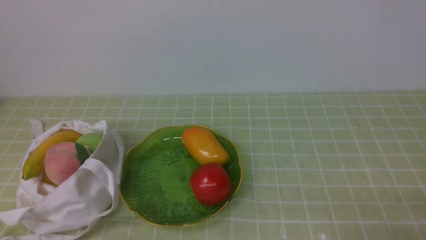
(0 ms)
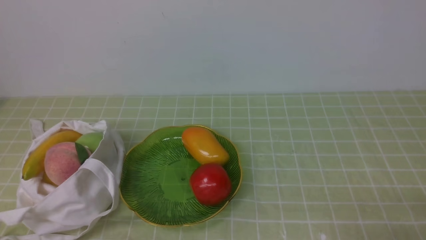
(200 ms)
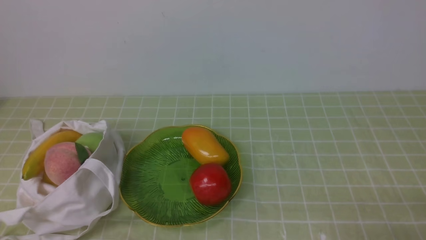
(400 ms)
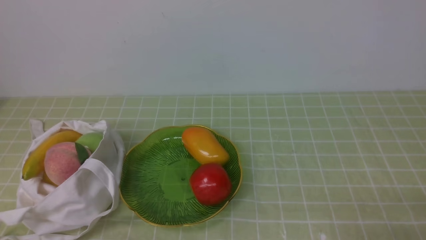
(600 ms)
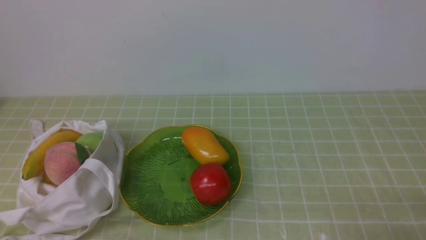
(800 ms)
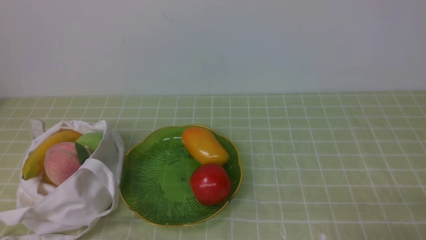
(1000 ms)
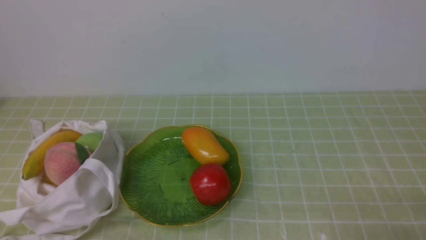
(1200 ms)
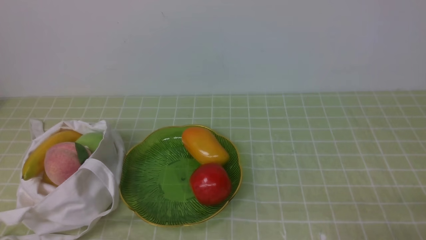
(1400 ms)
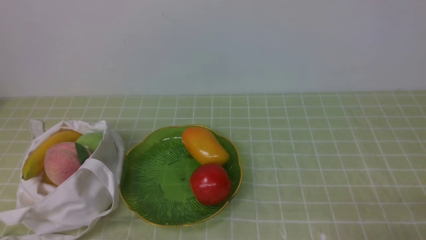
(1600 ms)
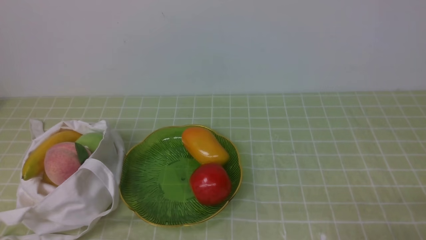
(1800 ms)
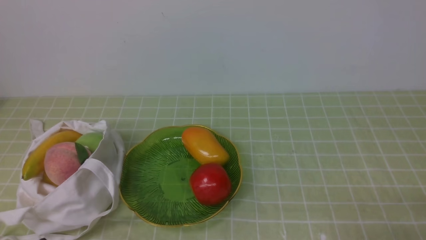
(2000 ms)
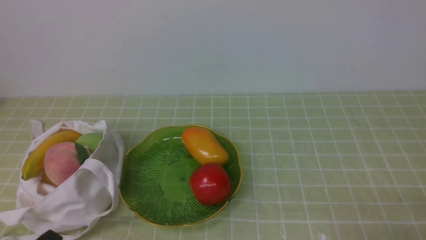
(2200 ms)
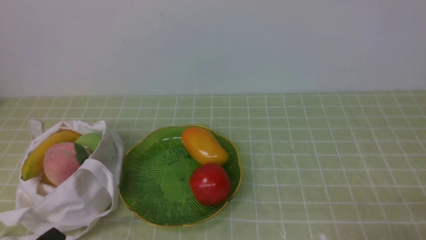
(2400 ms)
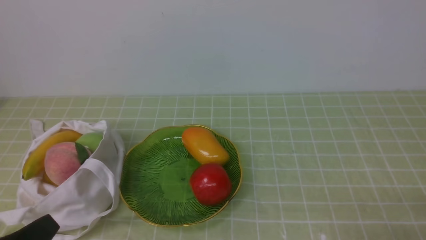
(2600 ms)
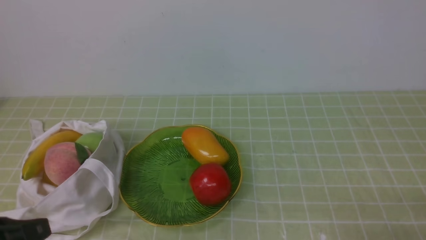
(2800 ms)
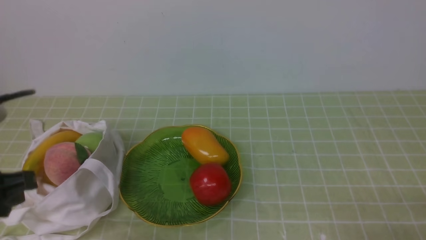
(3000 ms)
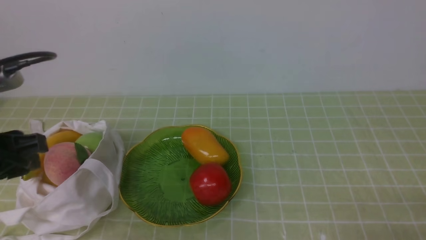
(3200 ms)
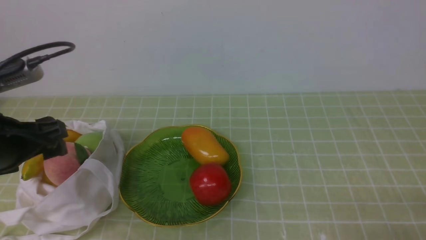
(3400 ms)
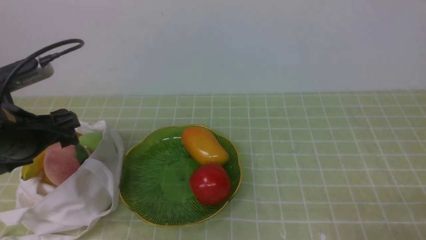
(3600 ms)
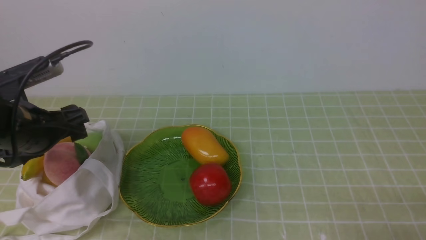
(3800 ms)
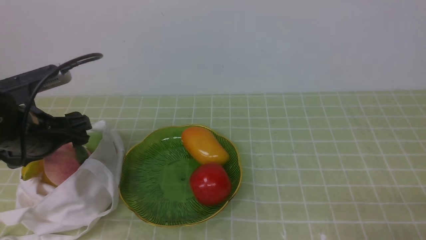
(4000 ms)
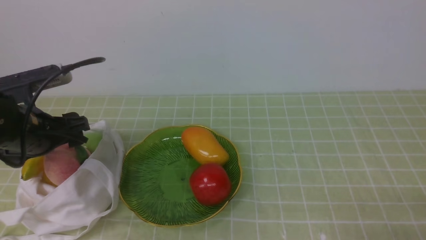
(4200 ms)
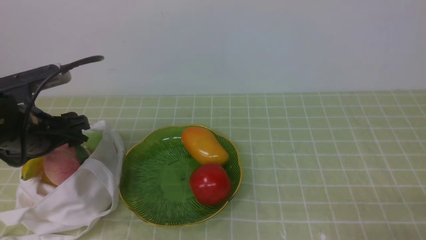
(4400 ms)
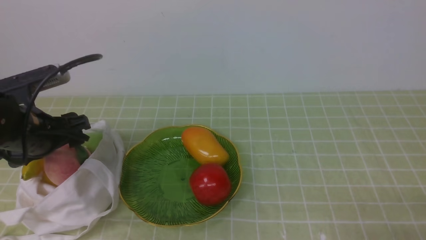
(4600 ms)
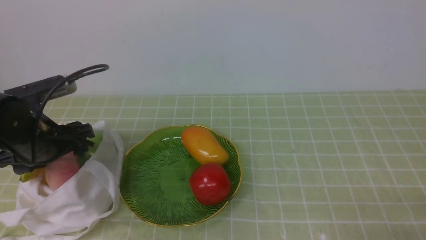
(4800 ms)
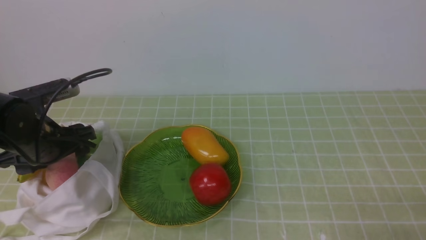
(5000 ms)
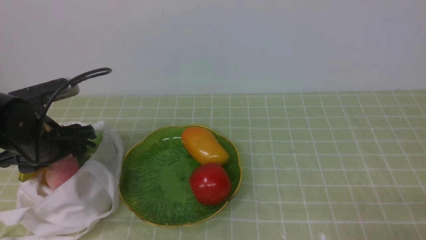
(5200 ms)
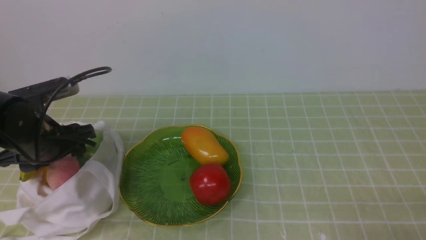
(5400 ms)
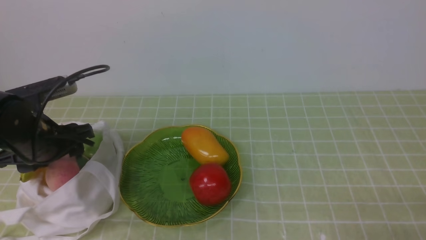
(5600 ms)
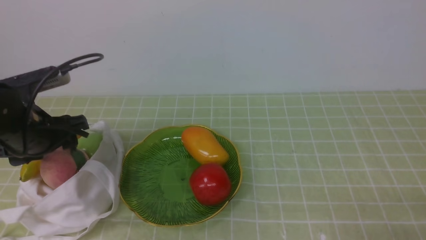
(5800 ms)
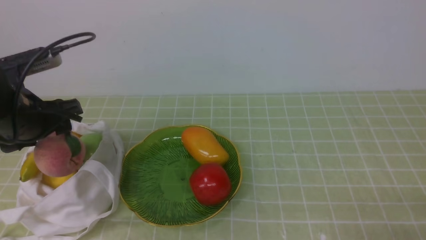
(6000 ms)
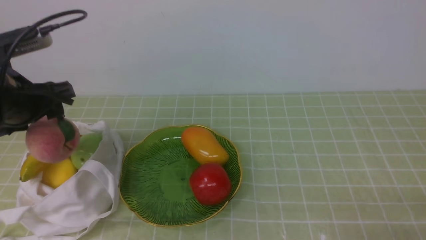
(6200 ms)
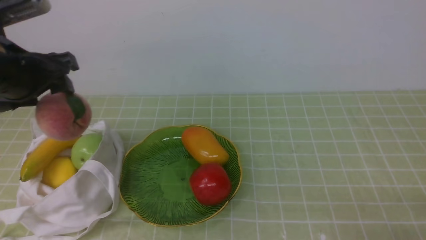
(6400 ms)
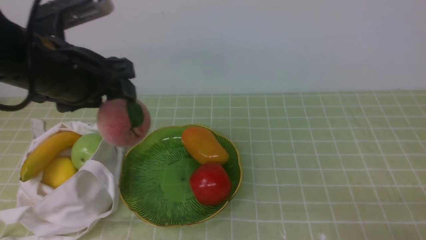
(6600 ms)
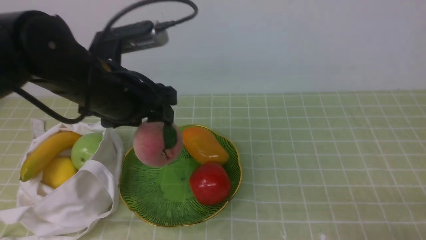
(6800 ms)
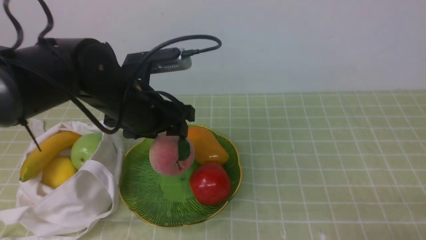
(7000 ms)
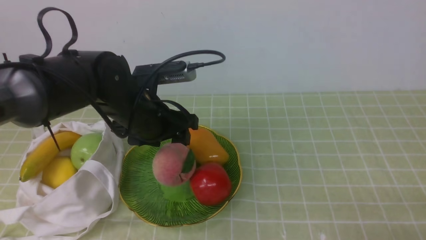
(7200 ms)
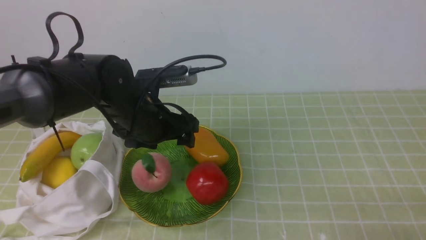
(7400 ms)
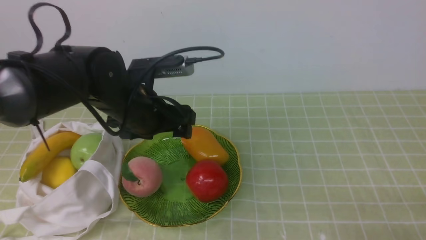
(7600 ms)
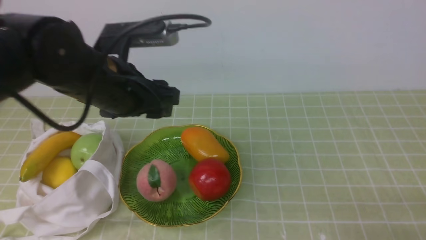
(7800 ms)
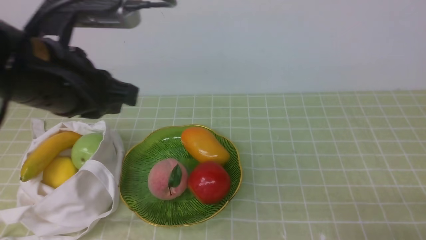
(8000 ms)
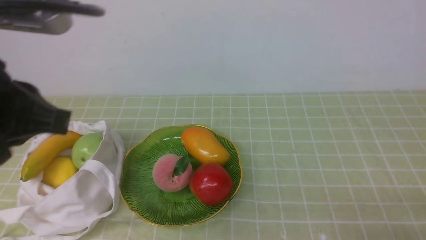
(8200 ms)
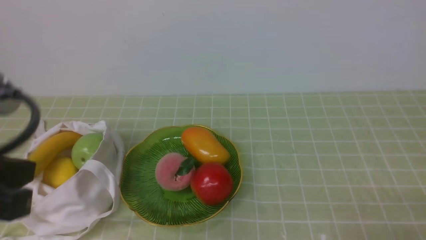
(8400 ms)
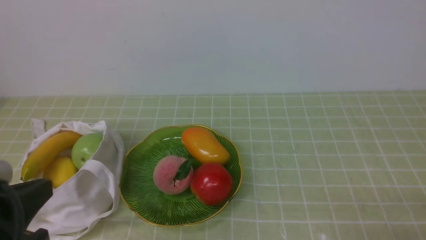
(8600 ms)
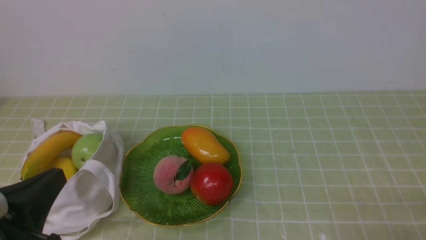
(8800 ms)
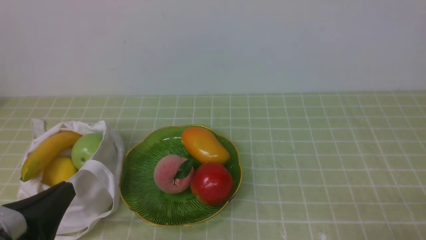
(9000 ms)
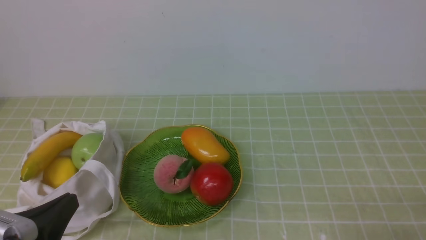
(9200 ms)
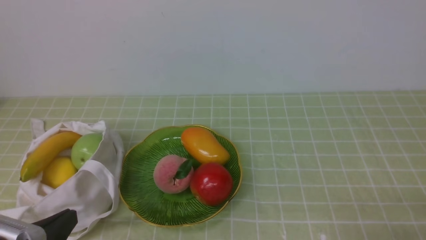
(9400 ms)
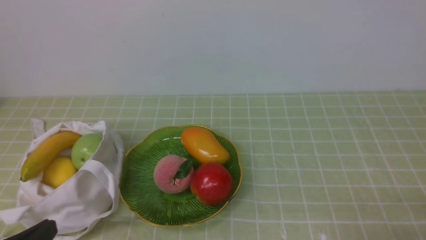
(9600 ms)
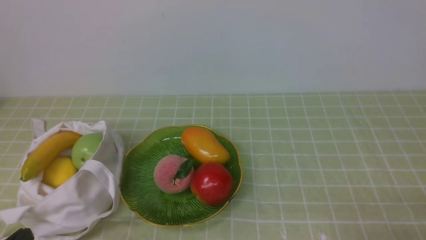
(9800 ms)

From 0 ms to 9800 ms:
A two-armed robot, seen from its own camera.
Step, from 0 ms to 6000 ms: use the left arm to grab a peach from the bag.
Step, from 6200 ms to 7600 ms: use the left arm to put the peach into the empty plate on the right.
From 1400 ms to 2800 ms: The left gripper travels upward by about 10 cm.
From 2800 ms to 4200 ms: The left gripper shifts approximately 20 cm forward, and opens up.
From 4200 ms to 5600 ms: The grippers stay close to where they were, moving slightly.
From 5600 ms to 7000 ms: The left gripper moves to the right and upward, roughly 15 cm.
From 7000 ms to 8400 ms: The left gripper travels backward, upward and to the left by approximately 20 cm, and closes its fingers.
From 8400 ms to 9800 ms: The left gripper moves downward, some 20 cm.

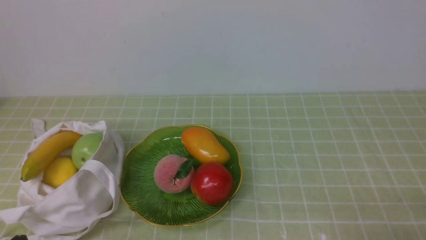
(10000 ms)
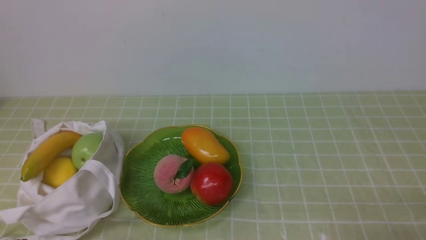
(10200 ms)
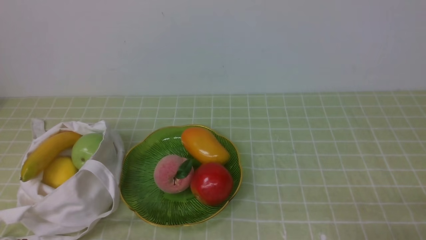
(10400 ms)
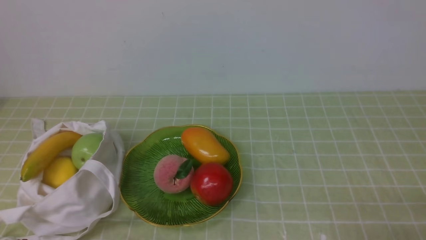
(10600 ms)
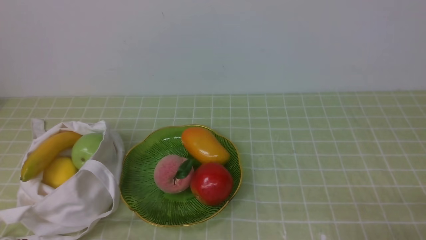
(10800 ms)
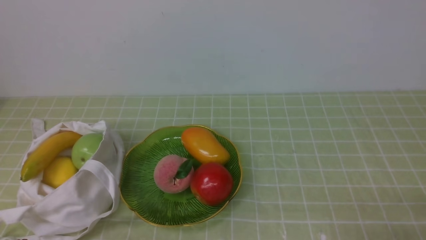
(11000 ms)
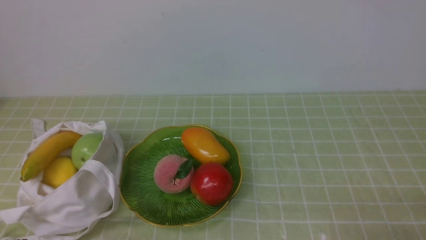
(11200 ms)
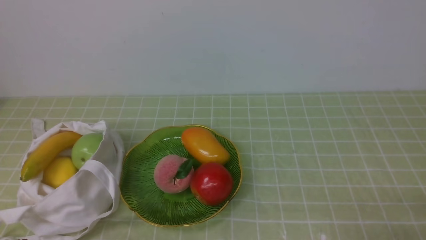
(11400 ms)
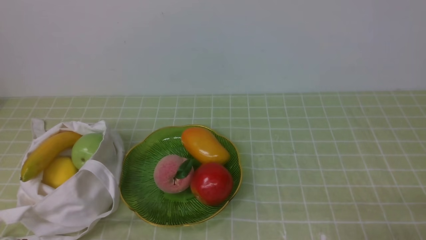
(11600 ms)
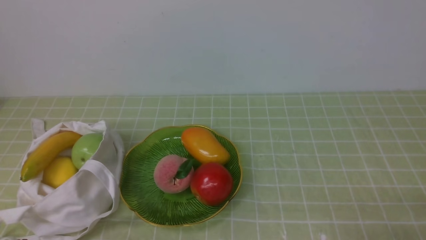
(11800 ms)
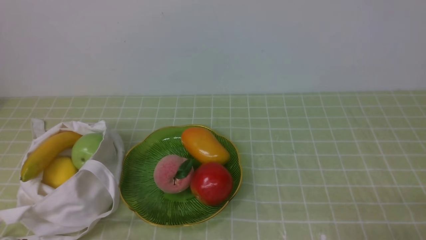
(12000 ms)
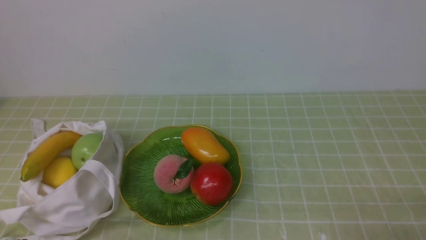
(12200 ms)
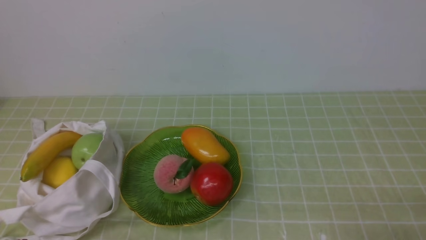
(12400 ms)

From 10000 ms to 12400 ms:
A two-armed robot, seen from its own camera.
From 10000 ms to 12400 ms: The two grippers keep their place.
